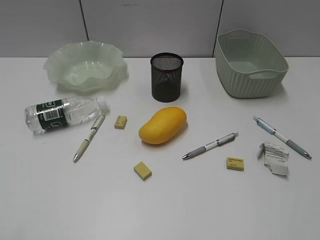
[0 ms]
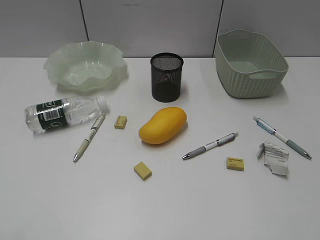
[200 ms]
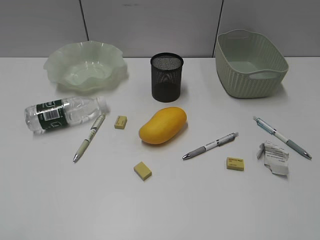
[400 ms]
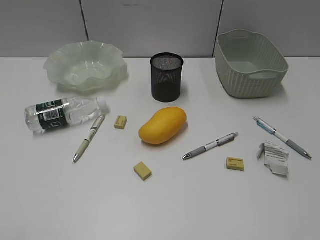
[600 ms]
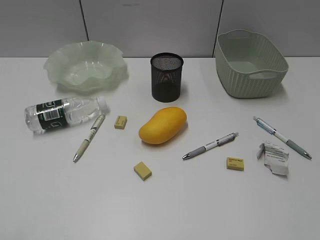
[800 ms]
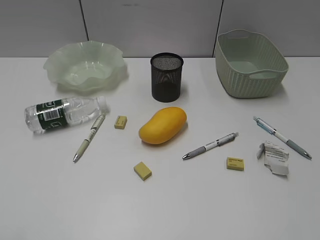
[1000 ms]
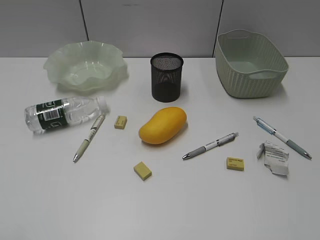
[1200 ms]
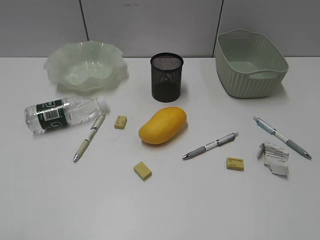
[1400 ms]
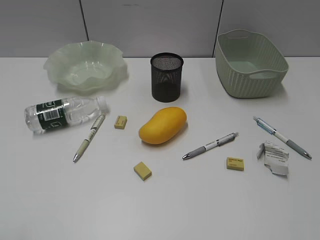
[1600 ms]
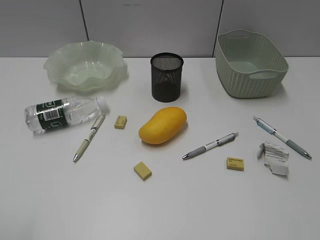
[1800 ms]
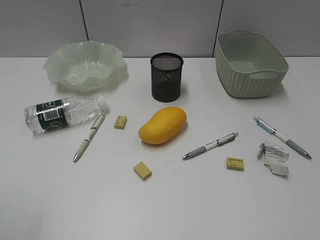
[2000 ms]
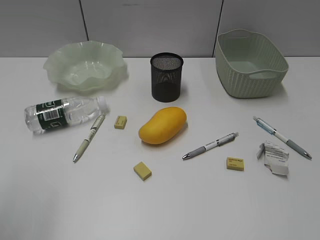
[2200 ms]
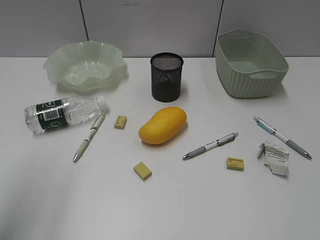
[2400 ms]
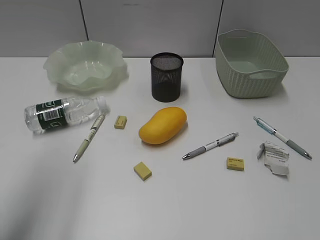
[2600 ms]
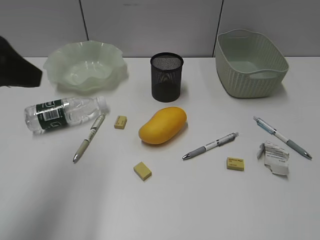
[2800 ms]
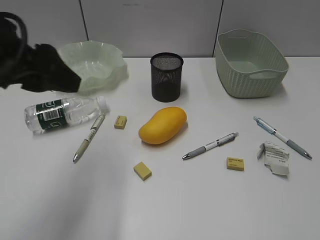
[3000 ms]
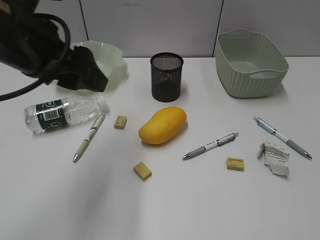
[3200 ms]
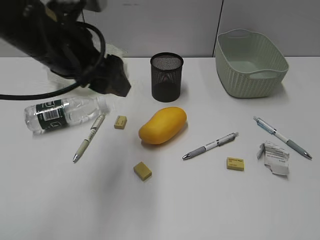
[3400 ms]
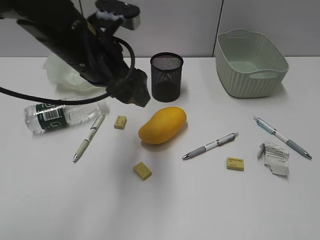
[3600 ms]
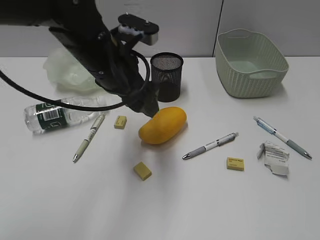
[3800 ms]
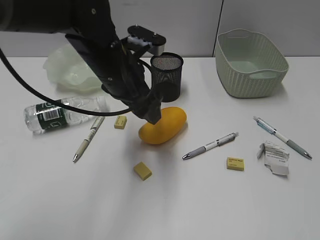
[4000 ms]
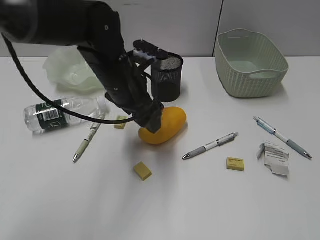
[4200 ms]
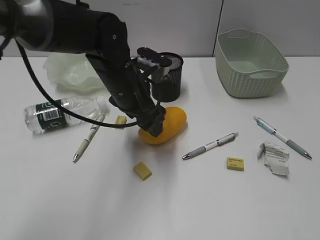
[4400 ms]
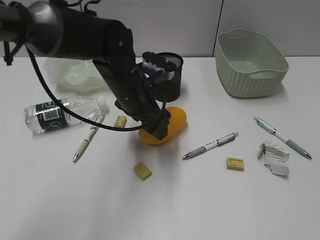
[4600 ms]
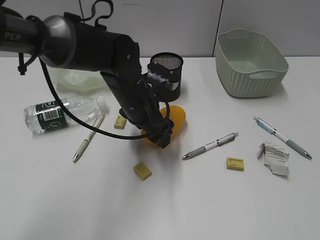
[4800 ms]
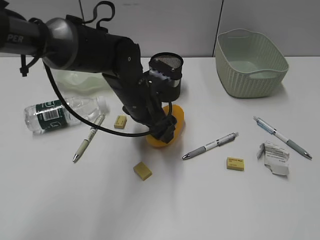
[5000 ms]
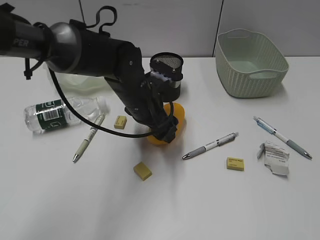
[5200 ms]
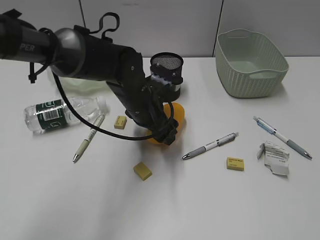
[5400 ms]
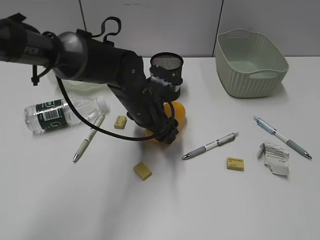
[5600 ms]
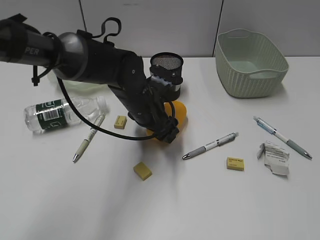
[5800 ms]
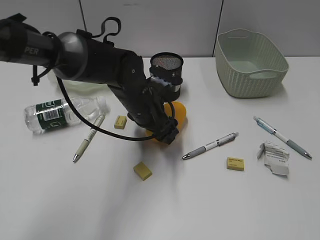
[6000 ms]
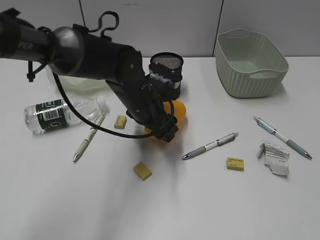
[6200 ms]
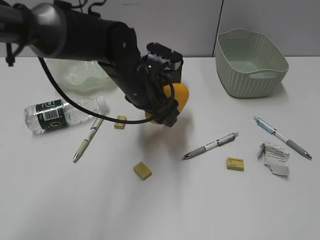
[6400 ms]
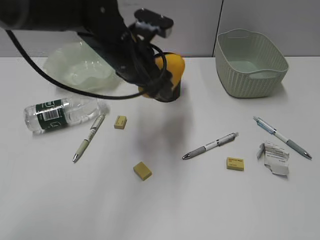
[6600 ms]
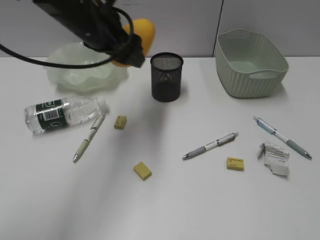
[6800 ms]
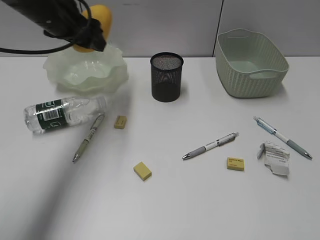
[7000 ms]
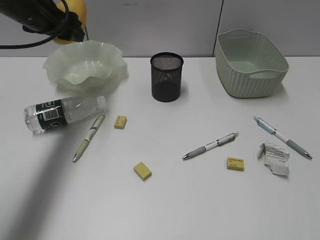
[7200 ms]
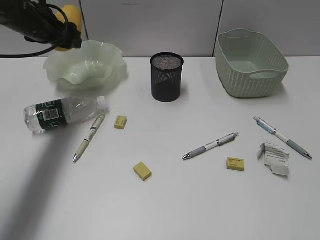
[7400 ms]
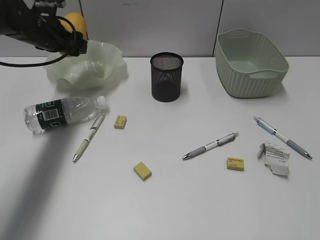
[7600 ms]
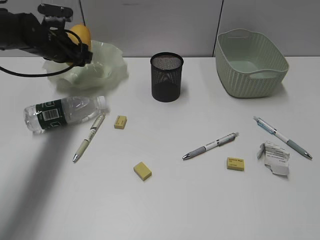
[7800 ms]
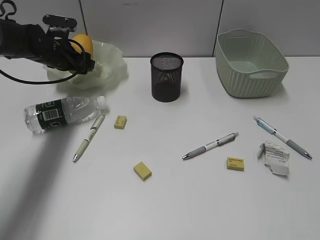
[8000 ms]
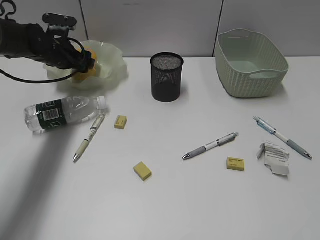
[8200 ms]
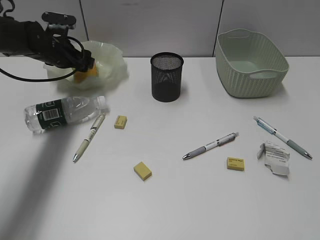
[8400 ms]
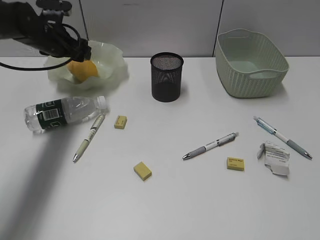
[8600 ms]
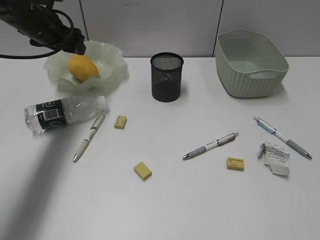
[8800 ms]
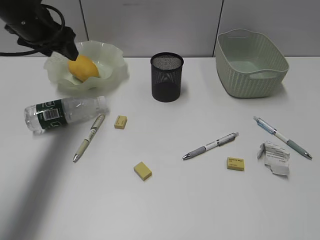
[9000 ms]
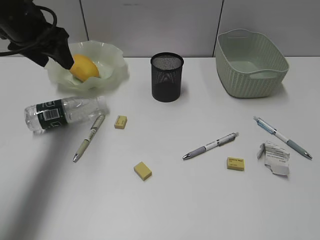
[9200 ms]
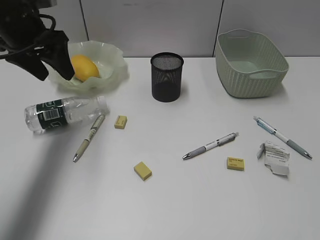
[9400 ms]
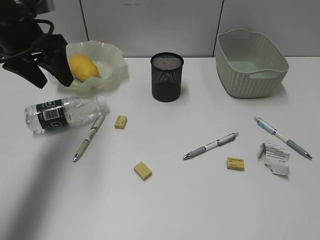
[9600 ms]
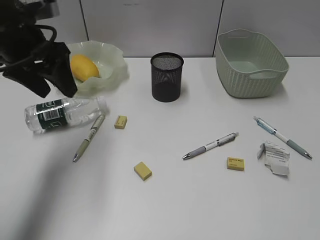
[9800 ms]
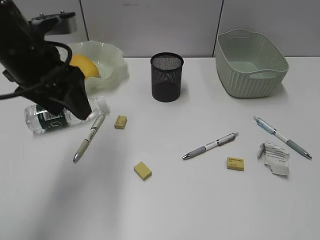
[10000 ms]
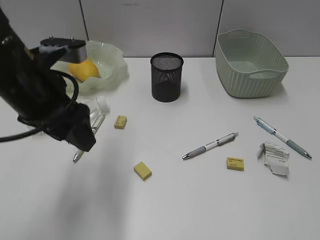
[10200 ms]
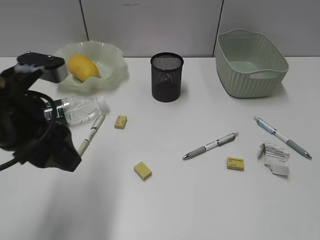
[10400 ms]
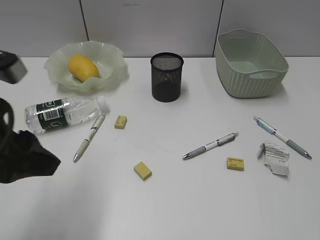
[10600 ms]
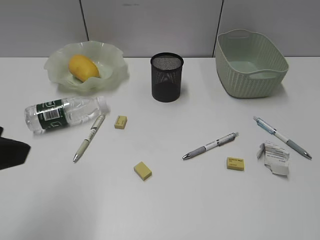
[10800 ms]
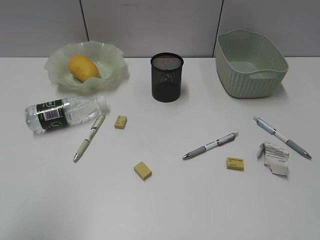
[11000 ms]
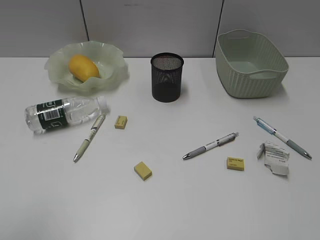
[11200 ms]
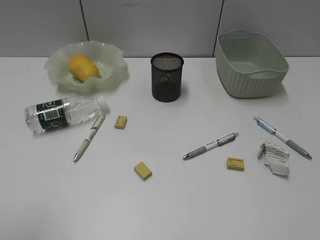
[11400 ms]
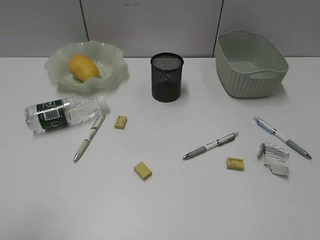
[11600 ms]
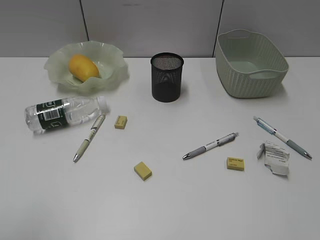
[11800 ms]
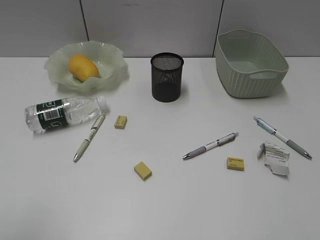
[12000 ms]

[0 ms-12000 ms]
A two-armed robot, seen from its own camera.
Step, 2800 ms to 5800 ms: Grasp the mango with left gripper.
Step, 6000 ms to 8800 ms: Place the mango in the plate with left gripper.
1600 ms to 3000 ms: The left gripper heads forward and to the right, covering roughly 25 cm.
3000 ms to 4400 ms: The left gripper goes about 20 cm to the right, downward and forward.
4400 ms to 6000 ms: The left gripper moves downward, roughly 5 cm.
6000 ms to 7600 ms: The left gripper heads to the left and forward, covering about 25 cm.
7600 ms to 9000 ms: The left gripper shifts roughly 10 cm upward and backward.
9000 ms to 10400 ms: The left gripper shifts approximately 20 cm backward.
10400 ms to 12000 ms: The left gripper travels backward and to the left by roughly 20 cm.

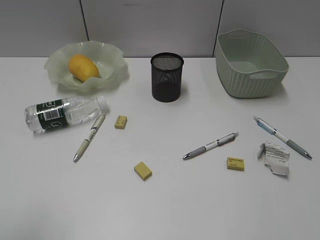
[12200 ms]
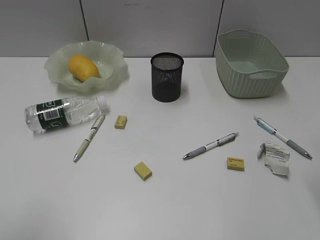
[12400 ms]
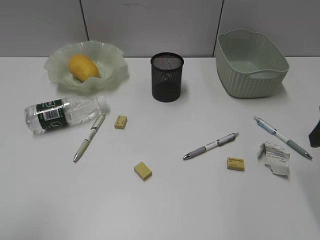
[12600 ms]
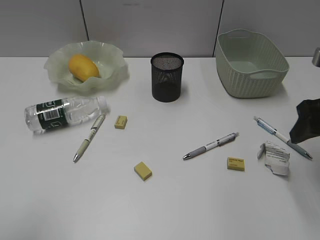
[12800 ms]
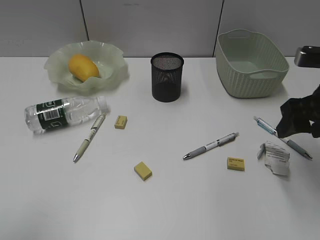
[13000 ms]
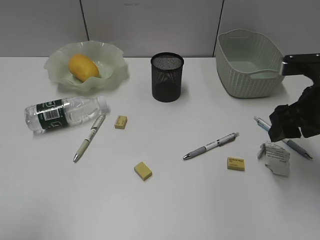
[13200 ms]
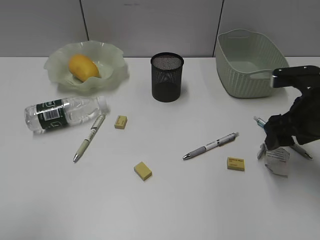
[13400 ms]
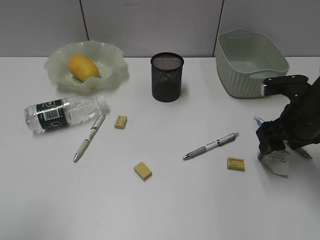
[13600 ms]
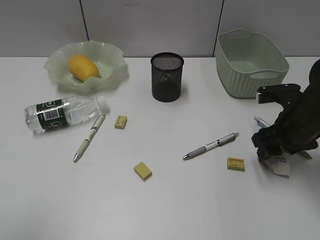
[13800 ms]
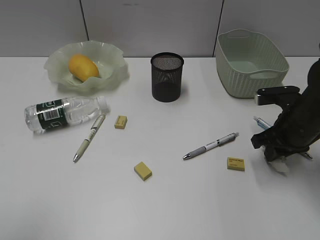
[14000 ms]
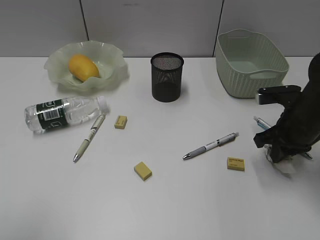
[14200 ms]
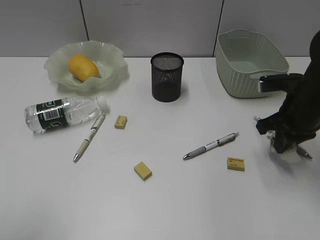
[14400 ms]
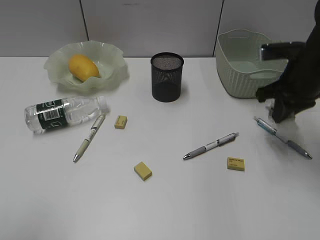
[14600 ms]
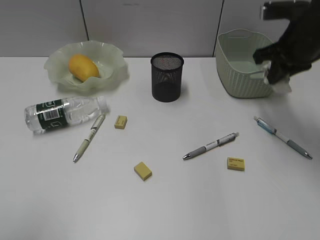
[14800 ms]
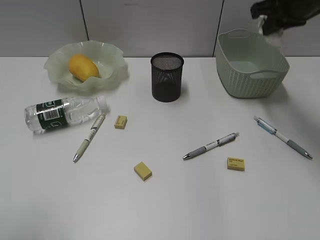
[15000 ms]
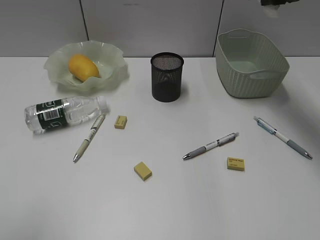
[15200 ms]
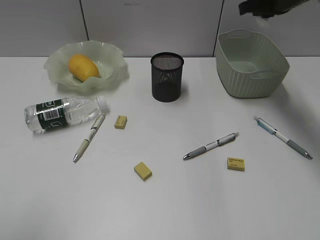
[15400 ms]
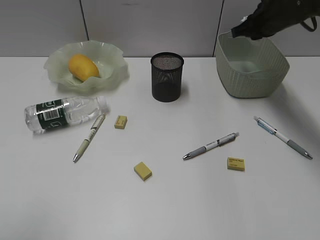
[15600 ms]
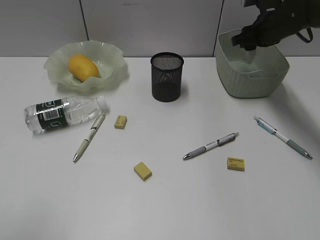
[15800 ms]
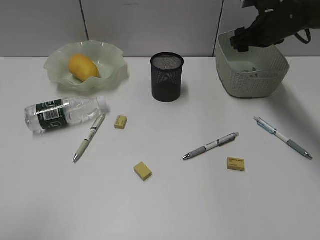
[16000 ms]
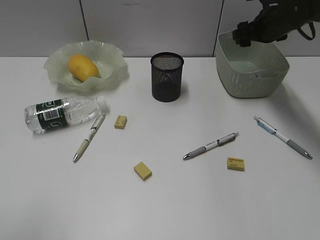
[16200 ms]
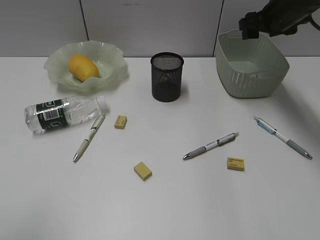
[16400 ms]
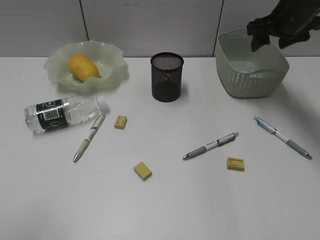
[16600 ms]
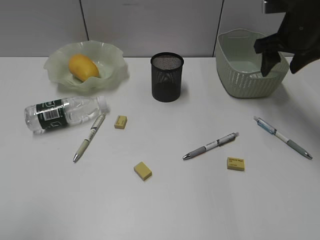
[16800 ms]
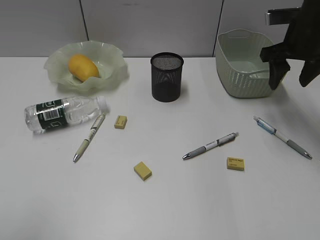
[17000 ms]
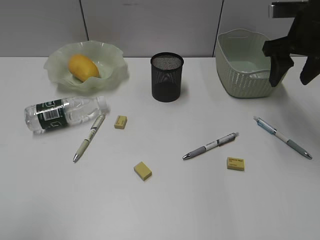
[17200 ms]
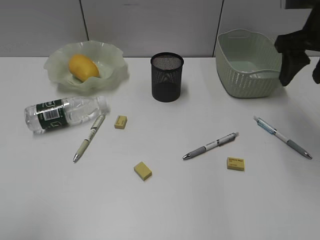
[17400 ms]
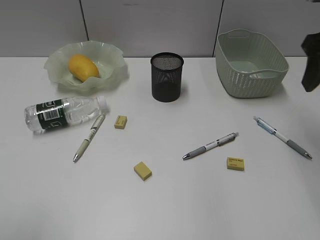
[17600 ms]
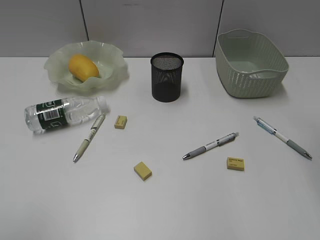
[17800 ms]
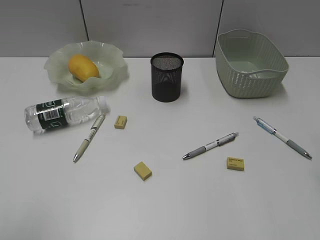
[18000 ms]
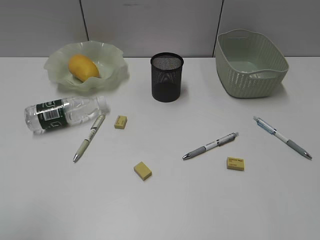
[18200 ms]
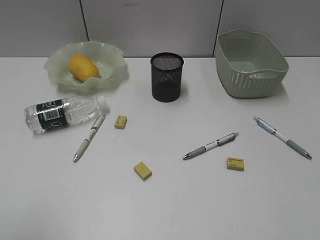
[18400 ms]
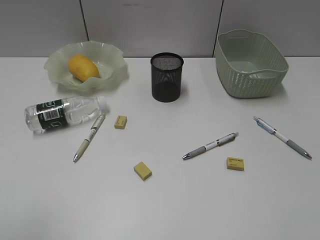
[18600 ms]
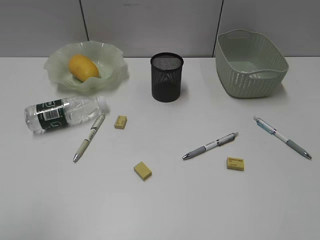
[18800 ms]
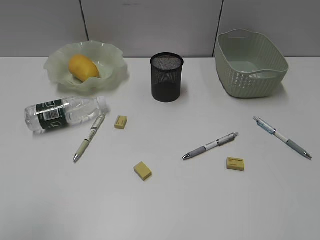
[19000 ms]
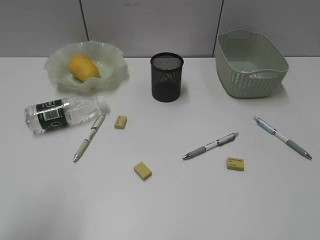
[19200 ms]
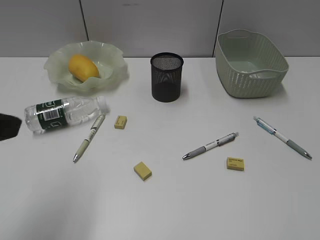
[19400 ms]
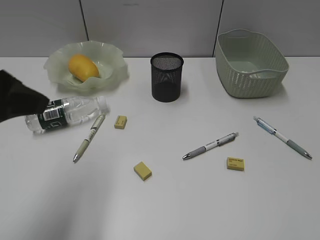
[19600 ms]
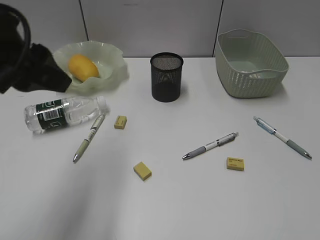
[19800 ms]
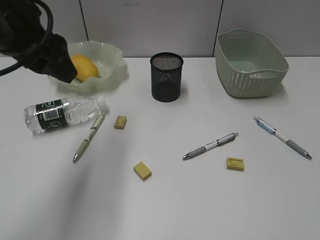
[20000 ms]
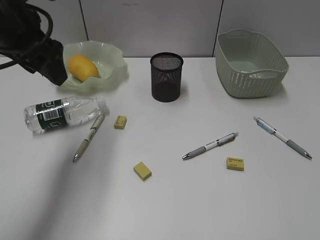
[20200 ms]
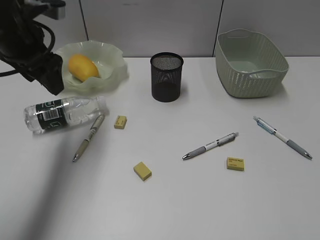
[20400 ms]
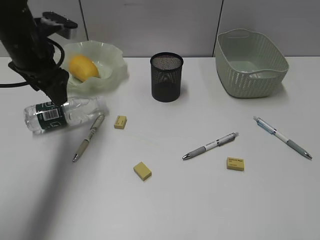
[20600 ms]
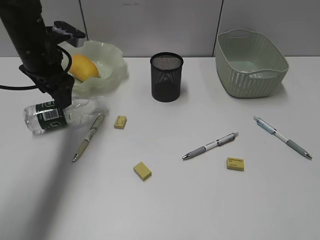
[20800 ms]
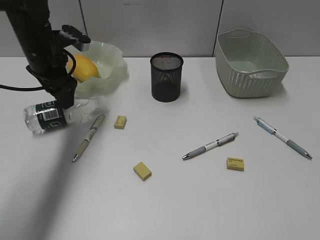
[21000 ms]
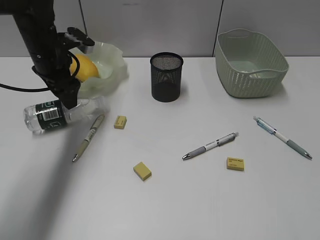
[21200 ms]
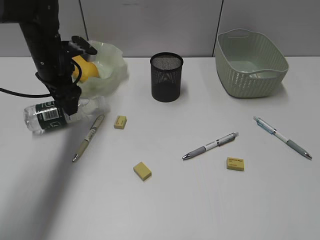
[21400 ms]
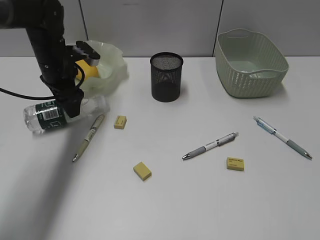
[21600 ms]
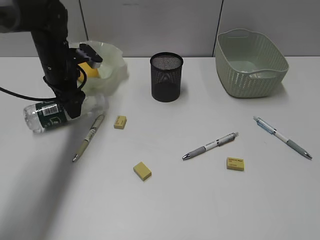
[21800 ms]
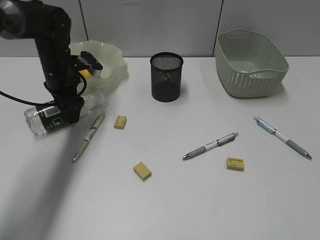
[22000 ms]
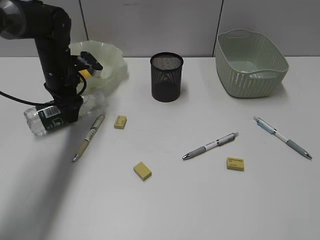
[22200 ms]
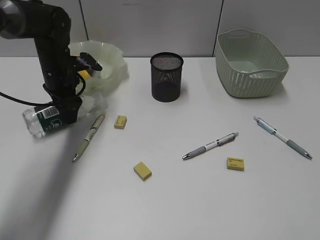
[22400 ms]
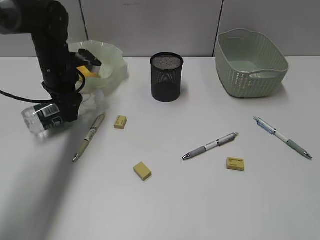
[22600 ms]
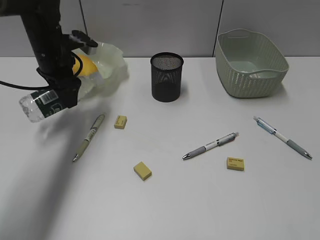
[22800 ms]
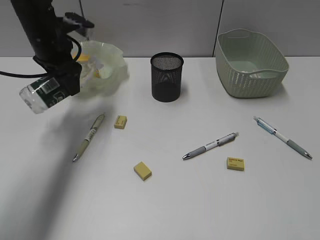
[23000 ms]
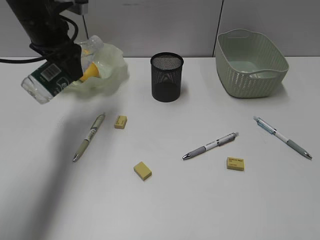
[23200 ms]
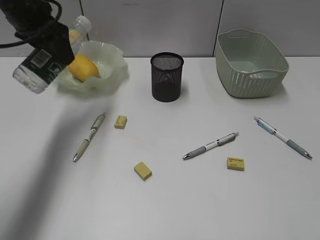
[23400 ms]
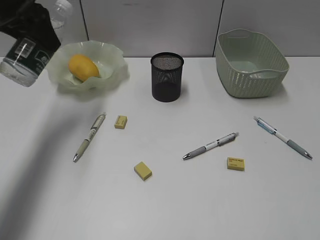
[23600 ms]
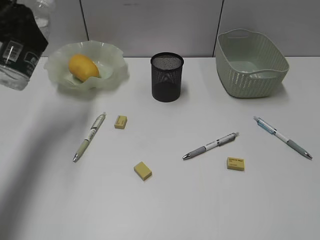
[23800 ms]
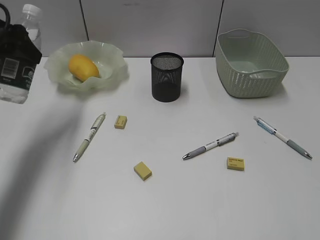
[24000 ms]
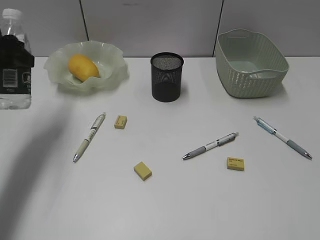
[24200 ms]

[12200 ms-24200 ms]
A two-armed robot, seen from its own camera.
Step, 14200 ms to 16200 ms: Place the waste paper in the basket with right gripper.
Step, 16400 ms to 22200 ms: Grasp the bottle with left gripper.
12200 ms to 13800 ms: The right gripper moves forward and downward, about 20 cm.
13800 ms to 15200 ms: The right gripper moves upward and forward, about 20 cm, and closes.
15200 ms to 16600 ms: The right gripper goes about 5 cm downward, and opens up.
16600 ms to 18200 ms: The right gripper heads backward, covering about 30 cm.
18200 ms to 19800 ms: The left gripper moves forward and to the right, some 20 cm; the right gripper heads backward, covering some 10 cm.
19800 ms to 21200 ms: The left gripper shifts some 25 cm forward and downward.
21200 ms to 22600 ms: There are only small adjustments of the grippers.
22600 ms to 24200 ms: The left gripper moves backward, upward and to the left, some 20 cm.
